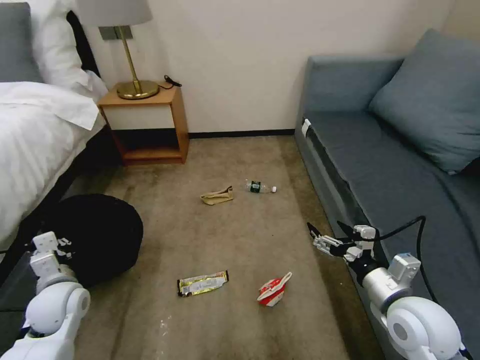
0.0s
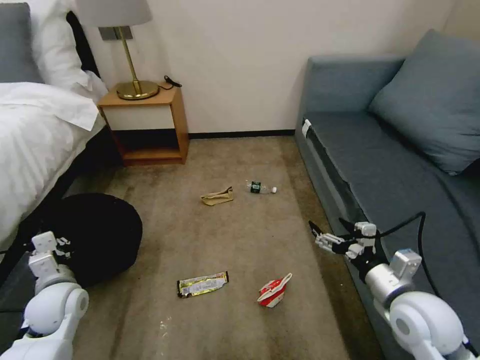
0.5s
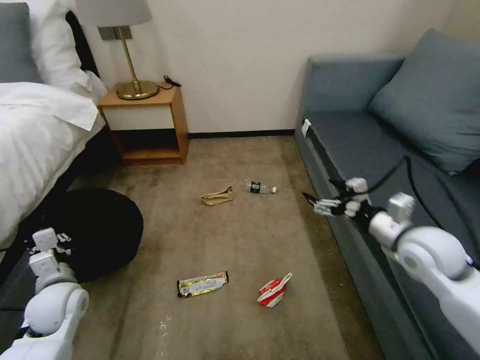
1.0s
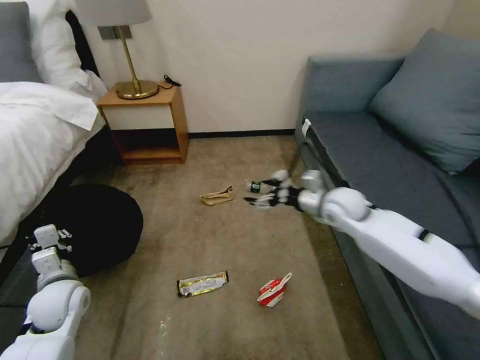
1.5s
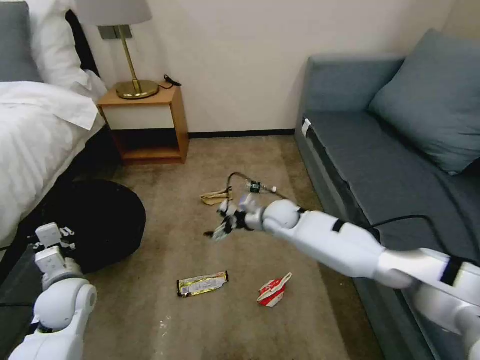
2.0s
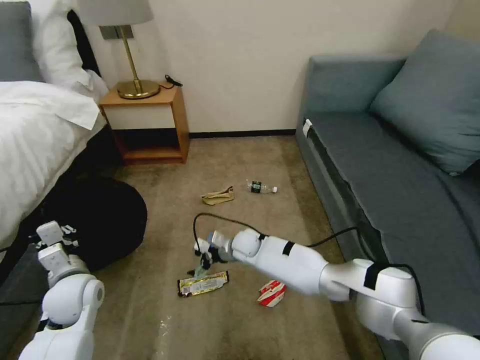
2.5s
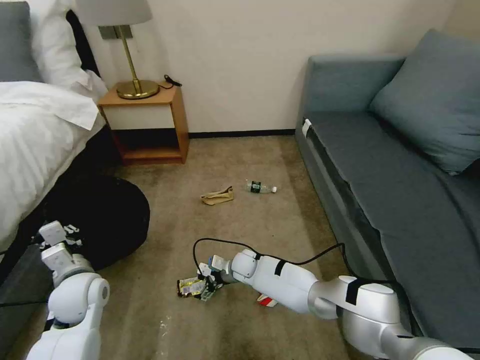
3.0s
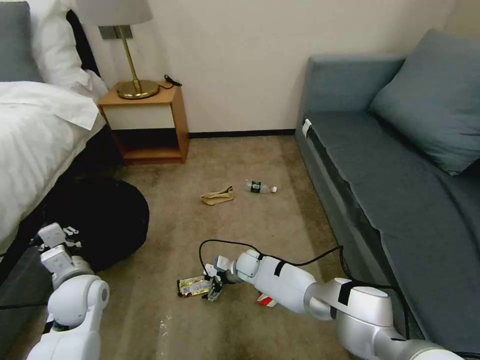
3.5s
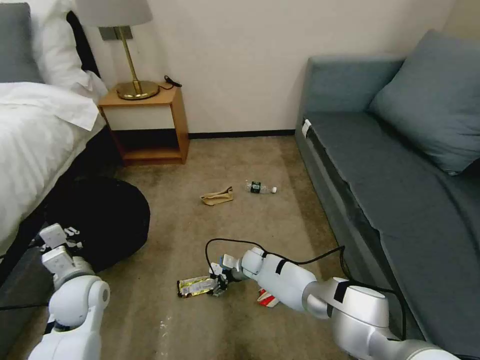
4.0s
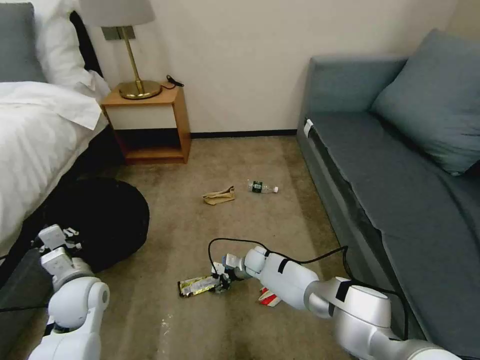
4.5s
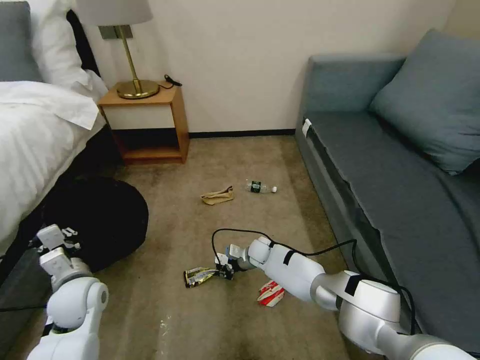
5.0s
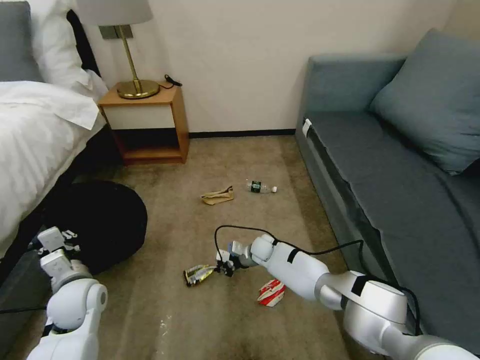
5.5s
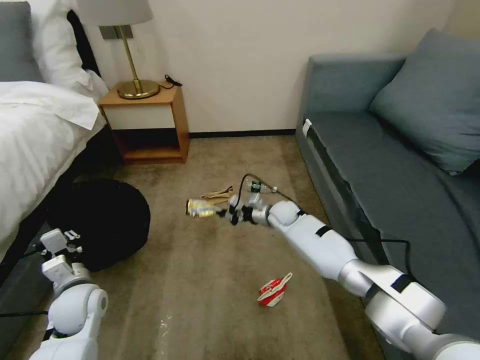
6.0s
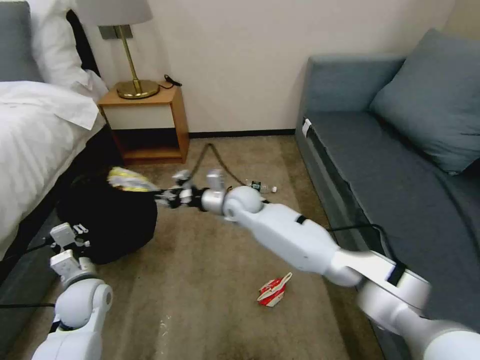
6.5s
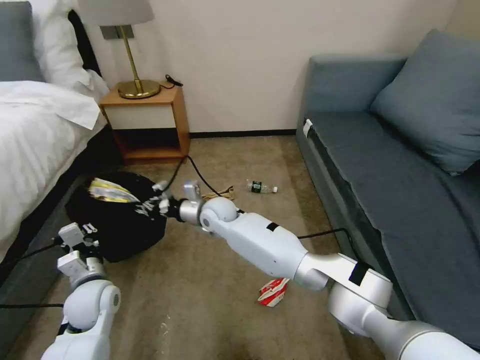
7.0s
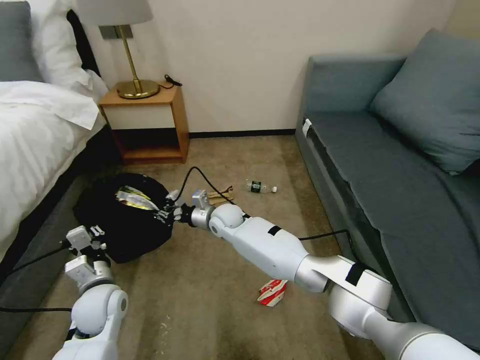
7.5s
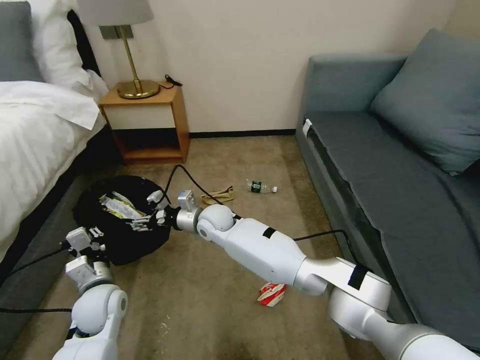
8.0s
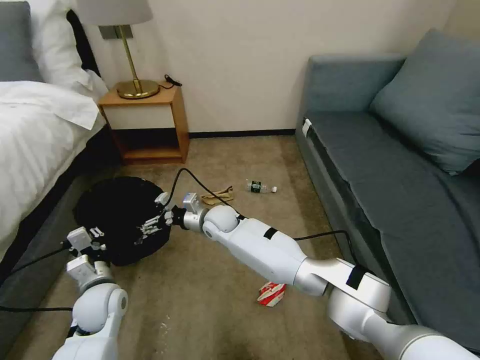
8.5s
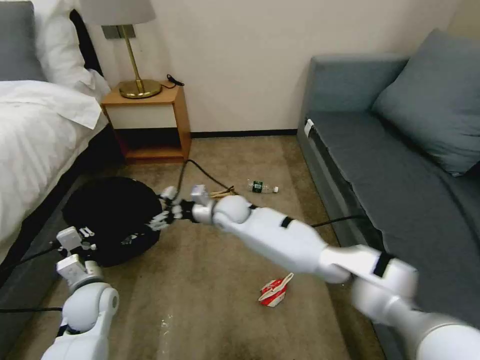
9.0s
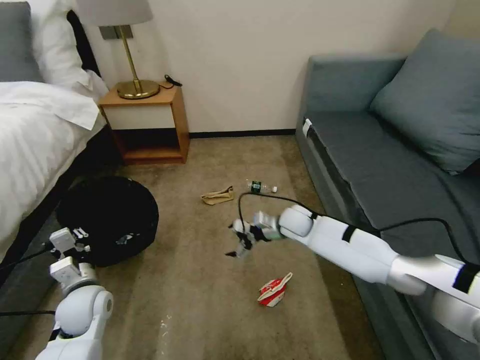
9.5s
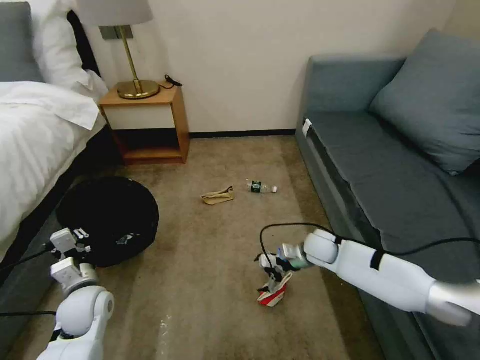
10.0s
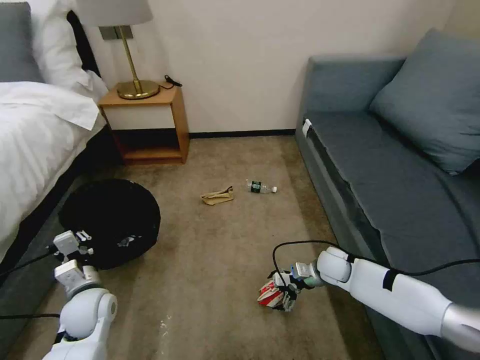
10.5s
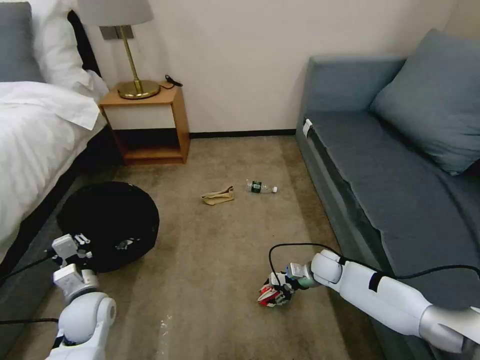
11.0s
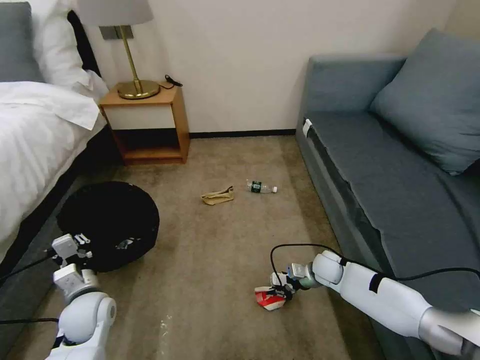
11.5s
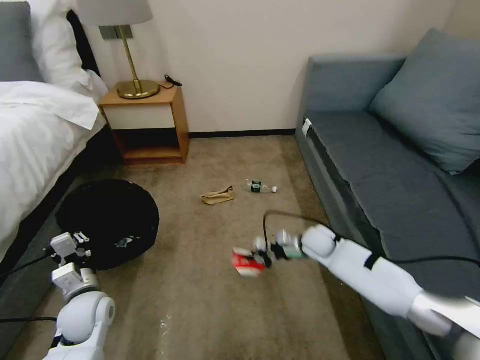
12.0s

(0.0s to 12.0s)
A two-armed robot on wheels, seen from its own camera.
Task of the whole recording: Pick up the trash bin, then pick up the garbage on the floor and place it into the trash bin.
0.0s - 2.0s: The right gripper heads forward and to the left, covering roughly 35 cm.
2.0s - 4.0s: The right gripper goes approximately 20 cm downward.
4.0s - 6.0s: The right gripper travels upward, forward and to the right by roughly 20 cm, and closes up.
6.0s - 8.0s: The right gripper goes approximately 20 cm to the left, and opens its fingers.
8.0s - 10.0s: The right gripper travels to the right by about 30 cm.
10.0s - 12.0s: The right gripper closes.

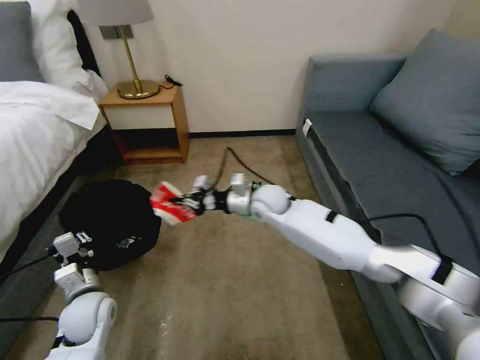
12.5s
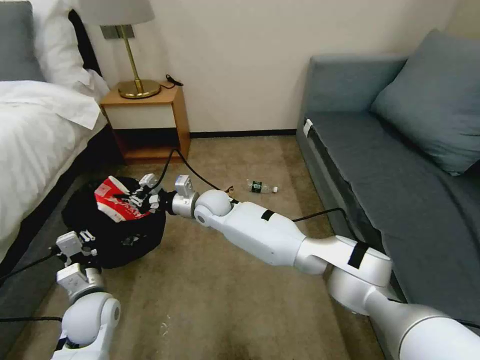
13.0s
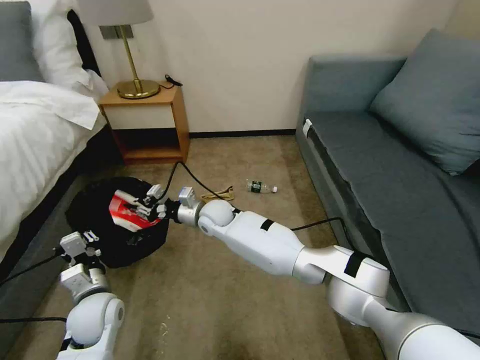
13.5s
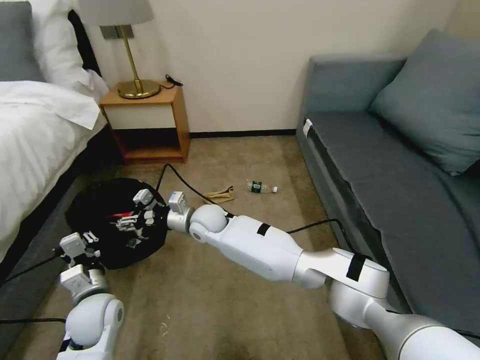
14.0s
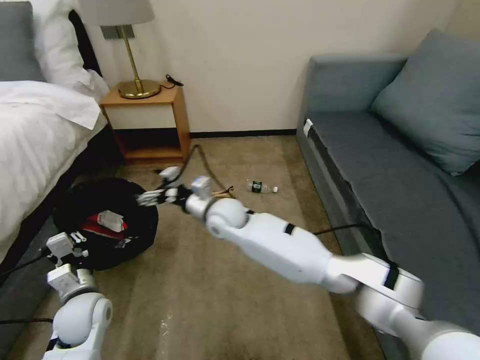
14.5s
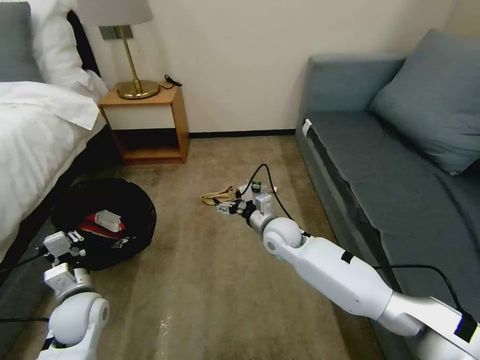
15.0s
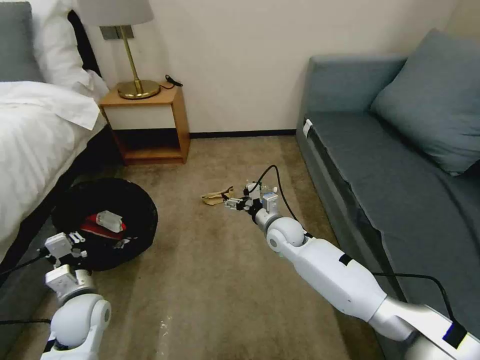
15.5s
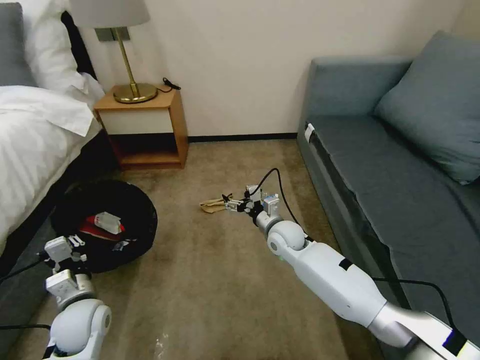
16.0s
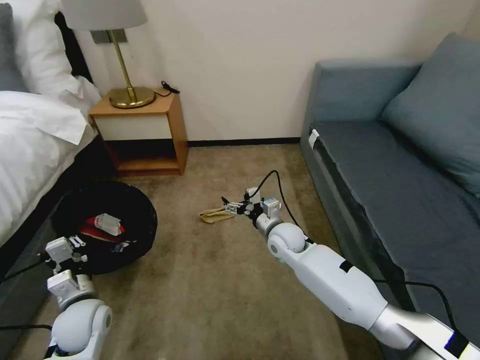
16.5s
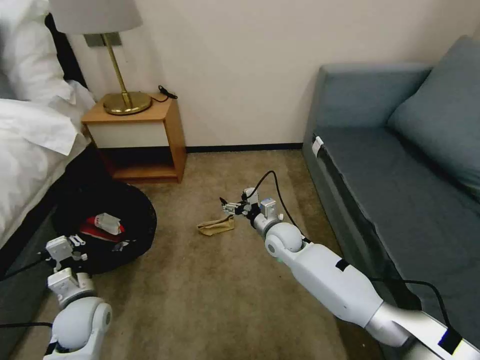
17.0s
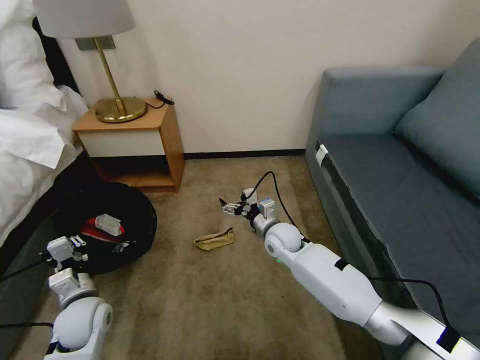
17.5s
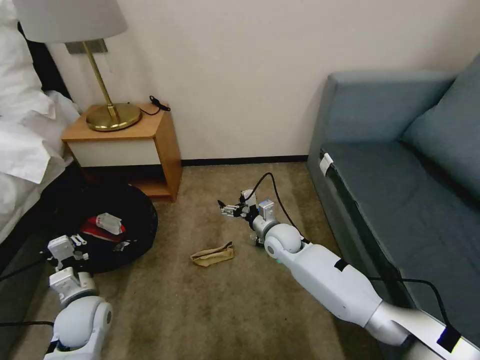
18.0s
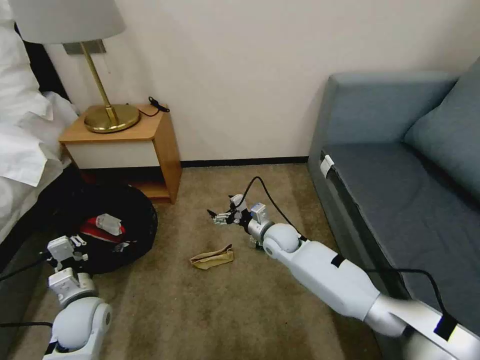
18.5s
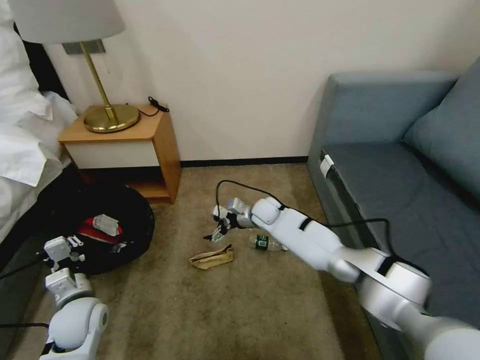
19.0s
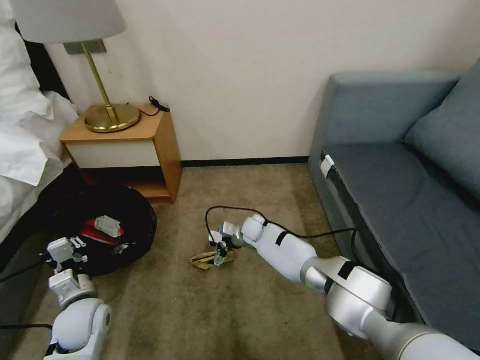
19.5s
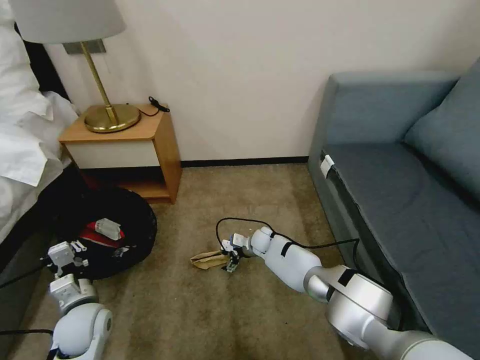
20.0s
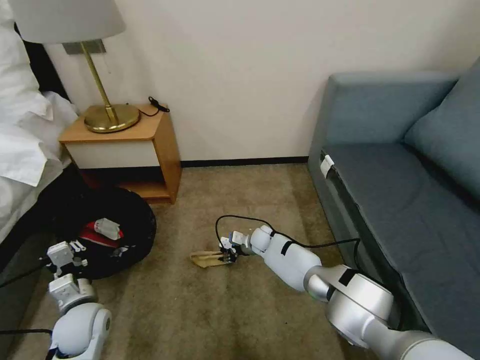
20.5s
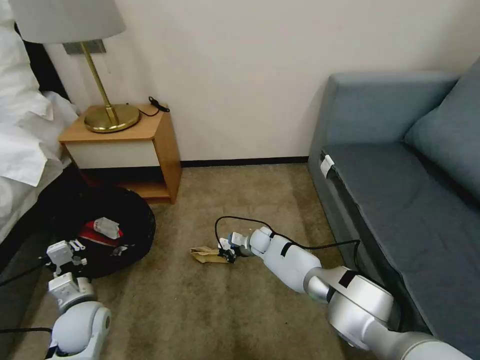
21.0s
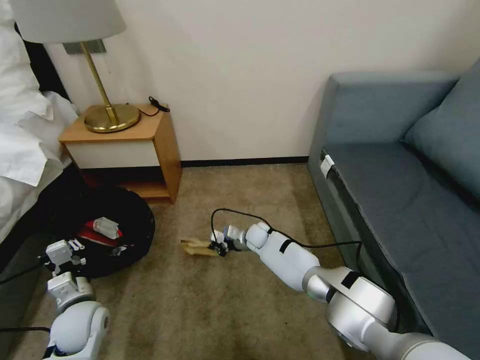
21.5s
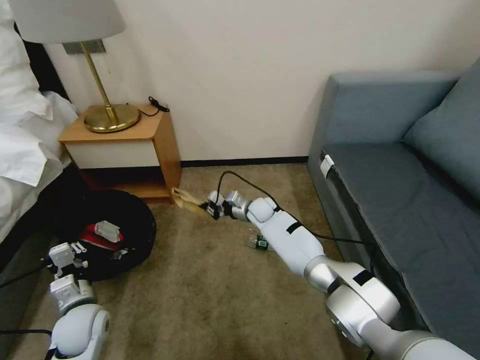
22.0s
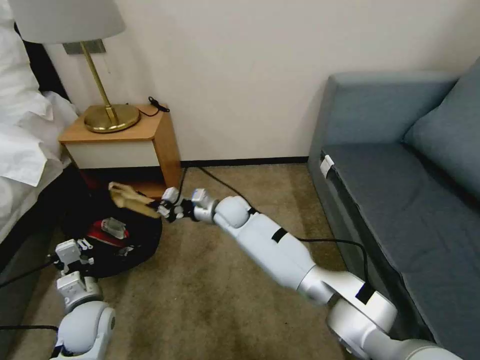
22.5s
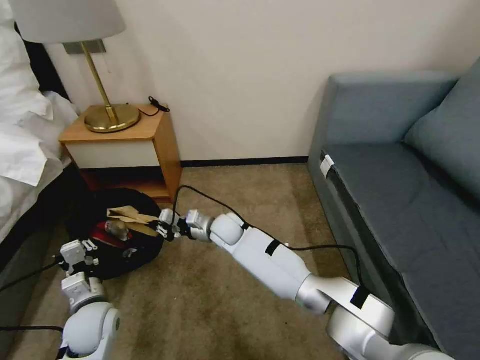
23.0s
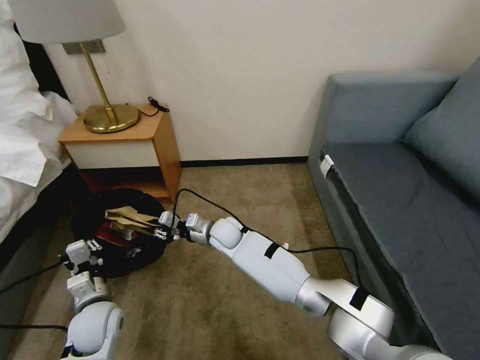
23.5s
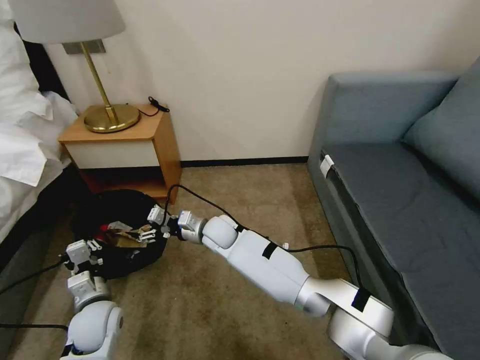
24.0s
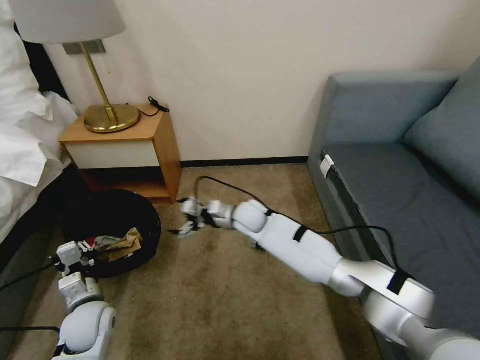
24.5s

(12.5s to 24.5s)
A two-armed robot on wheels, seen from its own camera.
Task of the whole recording: Pick up the trash bin, then pick up the garbage on the floor and place it into the trash bin.
12.5s - 14.5s: The right gripper moves to the left, some 10 cm, and opens its fingers.
14.5s - 16.5s: The right gripper goes about 20 cm to the right and downward.
18.5s - 20.5s: The right gripper moves downward and forward, roughly 15 cm, and closes.
20.5s - 22.5s: The right gripper is displaced upward and to the left by roughly 20 cm, and closes its fingers.
22.5s - 24.5s: The right gripper shifts about 5 cm to the right, and opens up.

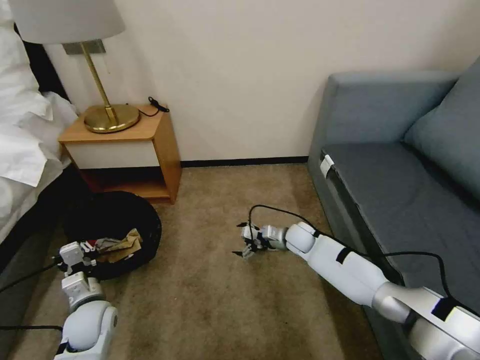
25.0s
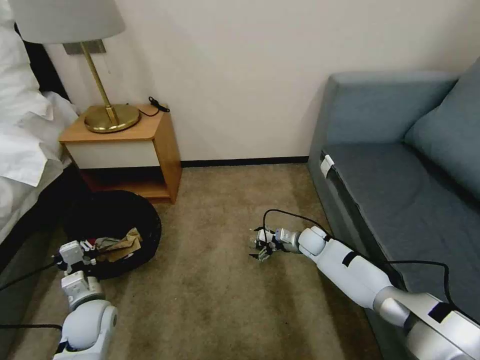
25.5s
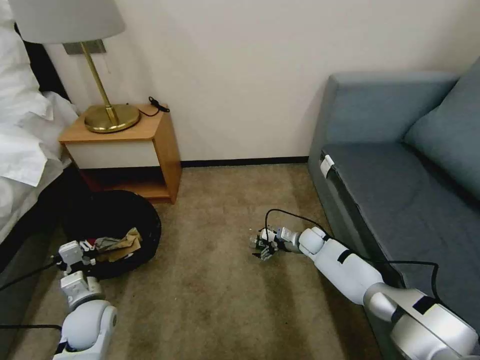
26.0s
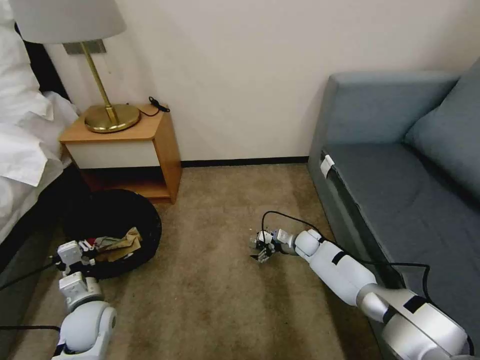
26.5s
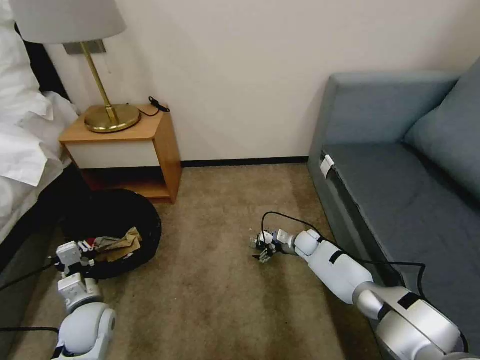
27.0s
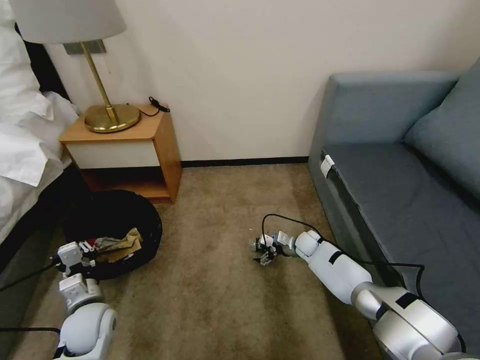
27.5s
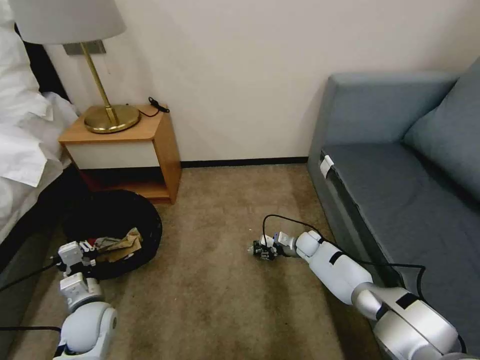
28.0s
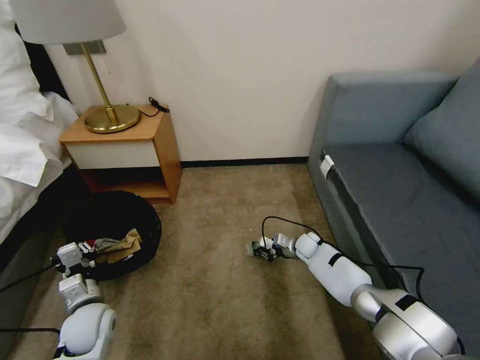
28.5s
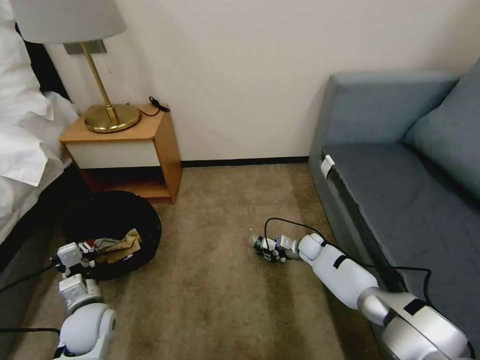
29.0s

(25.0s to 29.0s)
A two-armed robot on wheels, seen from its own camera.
Task of the whole recording: Pick up the trash bin, then pick up the garbage on the floor and place it into the trash bin.
25.0s - 27.0s: The right gripper shifts some 5 cm downward.
27.0s - 29.0s: The right gripper closes its fingers.
